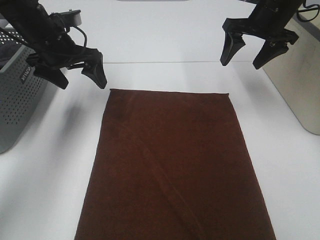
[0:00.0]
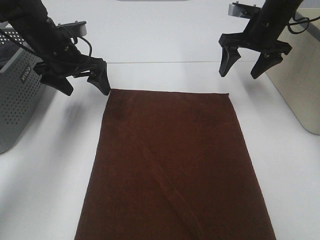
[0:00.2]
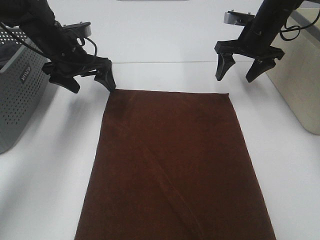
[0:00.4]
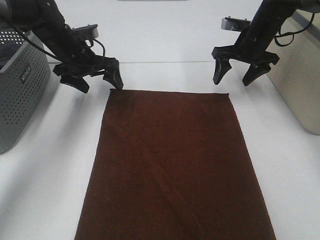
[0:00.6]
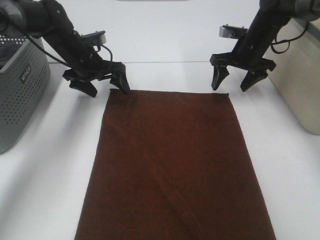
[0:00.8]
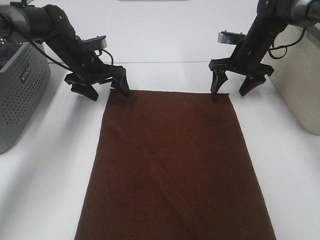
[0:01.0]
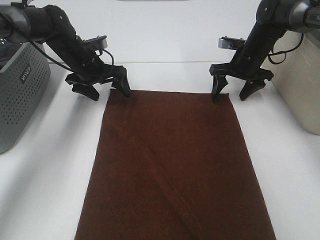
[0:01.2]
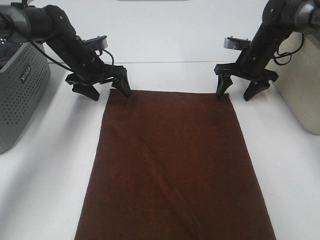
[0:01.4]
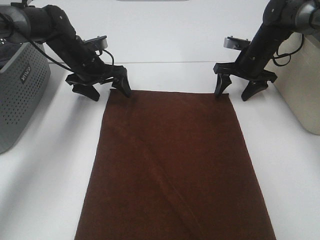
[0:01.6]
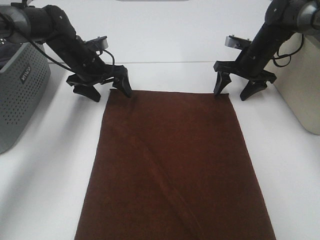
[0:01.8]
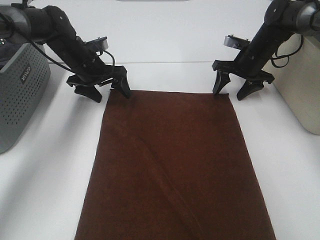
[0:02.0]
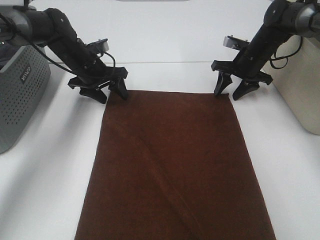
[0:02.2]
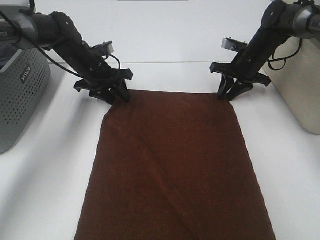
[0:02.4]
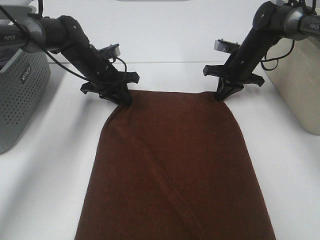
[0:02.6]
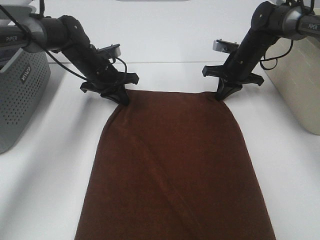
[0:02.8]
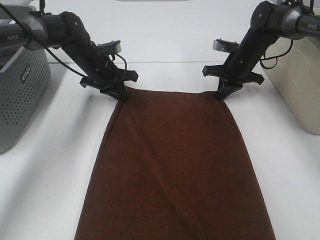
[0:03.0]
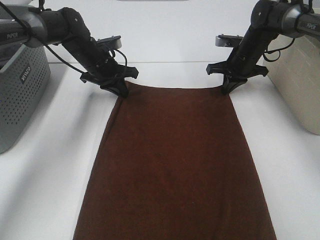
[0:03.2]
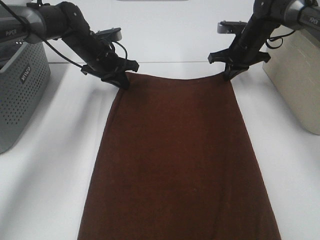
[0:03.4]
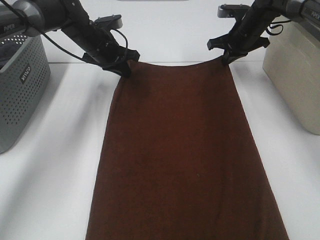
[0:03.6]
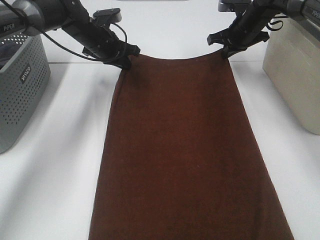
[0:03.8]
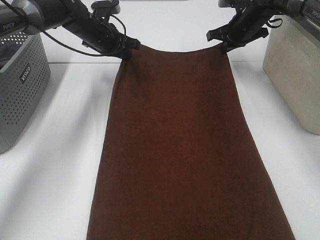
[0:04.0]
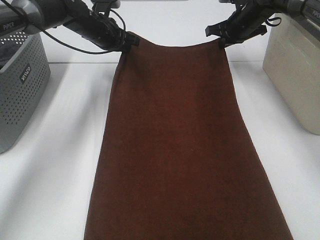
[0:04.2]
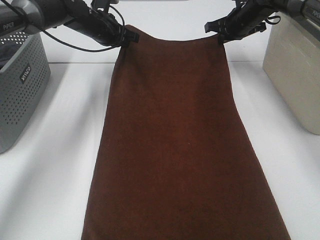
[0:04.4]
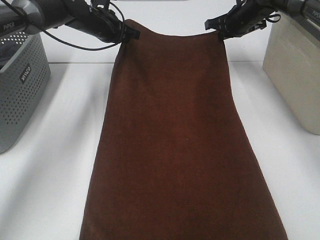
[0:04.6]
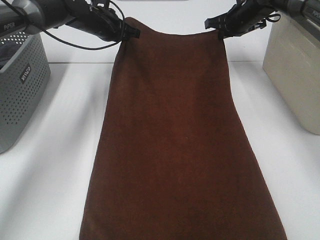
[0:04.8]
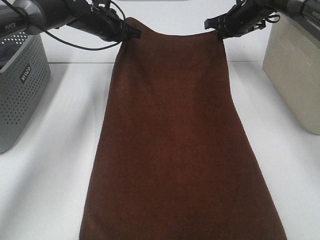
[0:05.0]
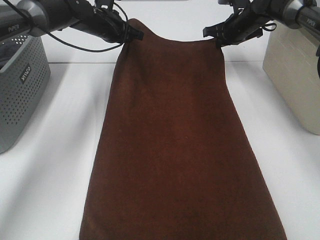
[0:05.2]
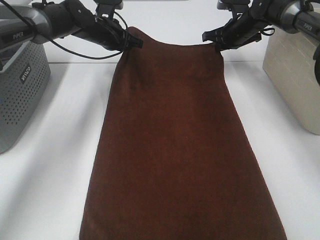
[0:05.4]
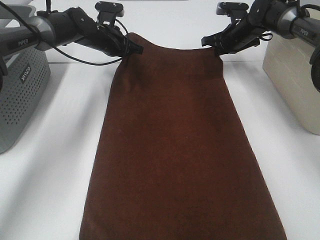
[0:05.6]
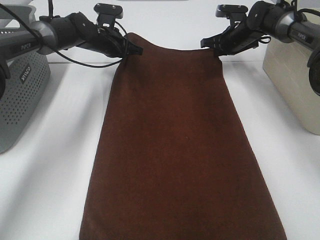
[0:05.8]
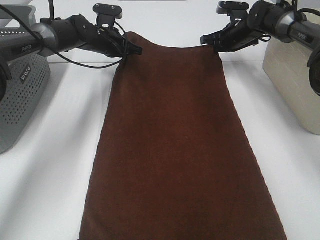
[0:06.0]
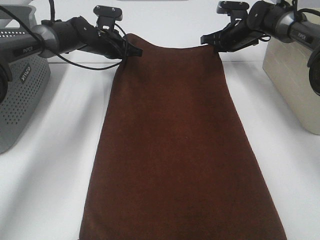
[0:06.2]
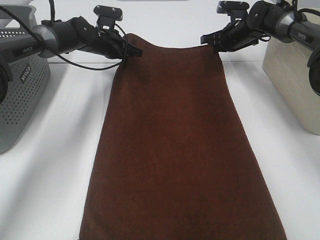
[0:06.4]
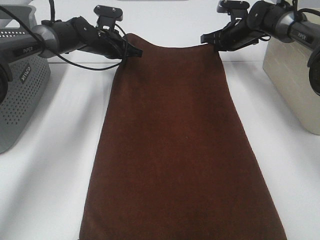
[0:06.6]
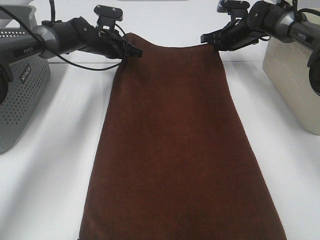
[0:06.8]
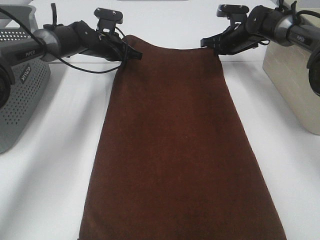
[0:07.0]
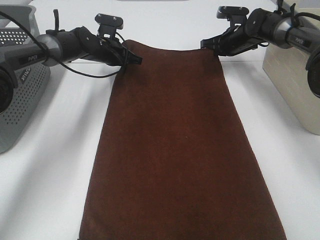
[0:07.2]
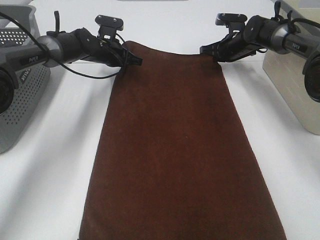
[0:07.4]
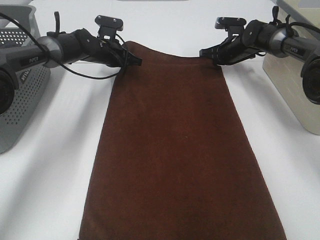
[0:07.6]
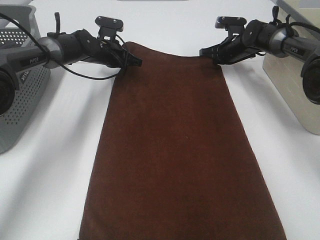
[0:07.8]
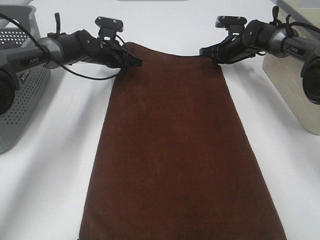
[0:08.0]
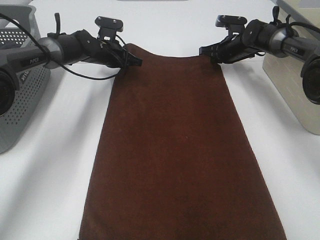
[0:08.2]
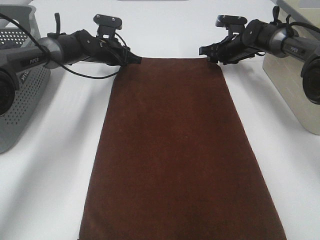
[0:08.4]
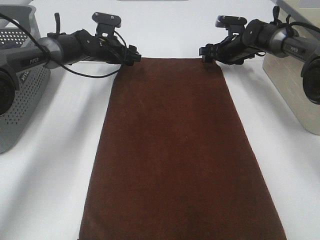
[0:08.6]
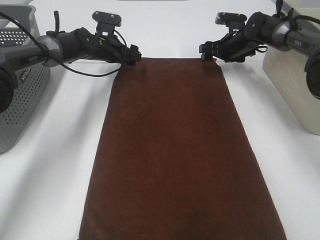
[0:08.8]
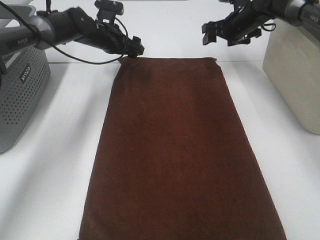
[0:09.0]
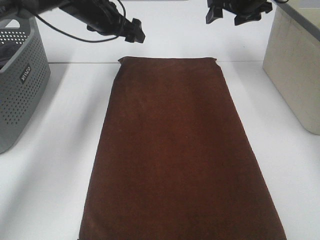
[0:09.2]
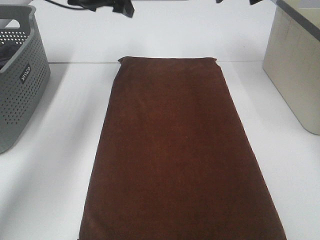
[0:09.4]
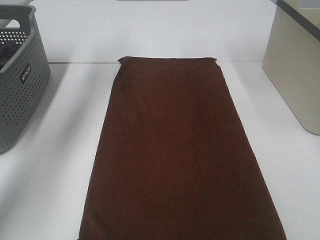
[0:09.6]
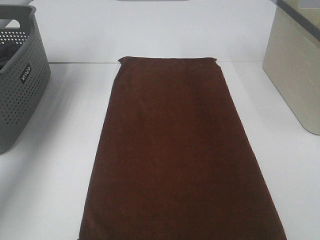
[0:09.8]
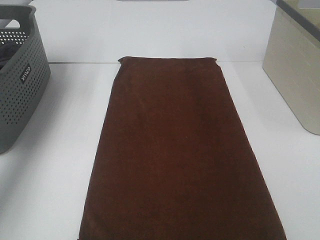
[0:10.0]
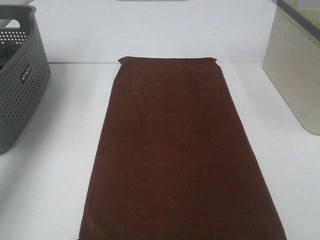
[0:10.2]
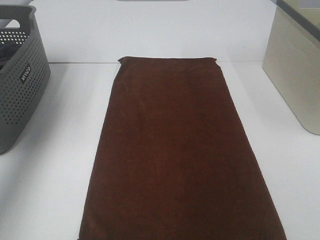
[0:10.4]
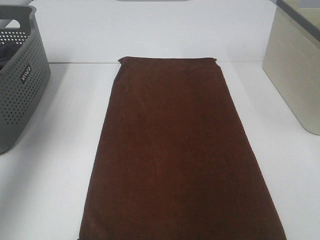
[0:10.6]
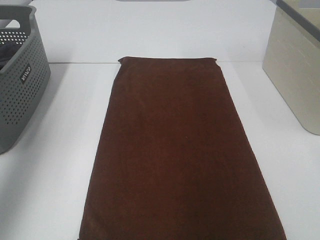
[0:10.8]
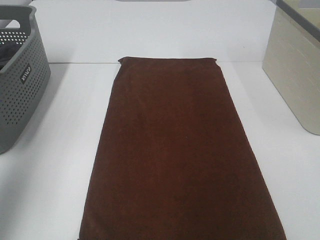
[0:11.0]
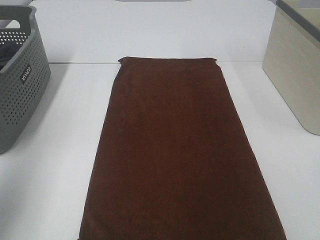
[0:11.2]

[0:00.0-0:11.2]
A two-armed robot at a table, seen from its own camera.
Task of the whole recording: Remove the towel and place it.
Step, 0:00.0 to 0:02.2: Left hand:adjust the brown towel.
Step, 0:00.0 to 0:02.2: Right hand:adjust the brown towel.
0:00.0 to 0:01.6: The grippers both shift downward and forward by about 10 cm.
0:01.6 to 0:03.2: The left gripper closes up. Meanwhile the right gripper closes its fingers.
0:03.2 to 0:04.8: Both grippers travel together upward and forward, some 10 cm.
0:04.8 to 0:06.4: The grippers both shift downward by some 5 cm.
0:06.4 to 0:08.0: The grippers make only small movements.
0:08.0 to 0:09.6: Both grippers move upward, roughly 25 cm. The right gripper opens its fingers. The left gripper opens its fingers.
0:09.6 to 0:11.2: The grippers both shift backward by some 40 cm.

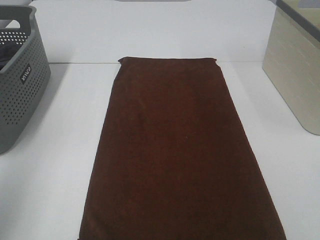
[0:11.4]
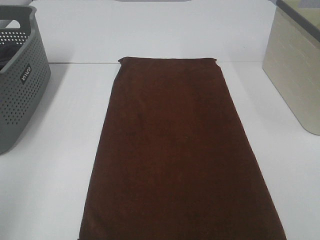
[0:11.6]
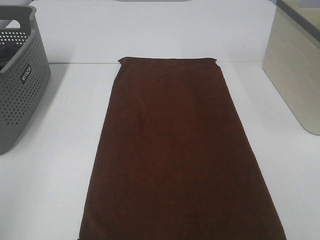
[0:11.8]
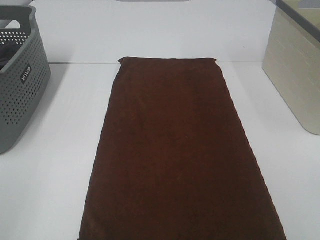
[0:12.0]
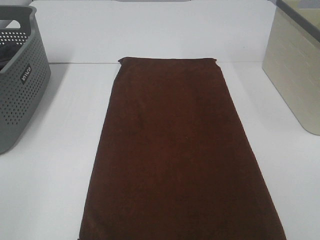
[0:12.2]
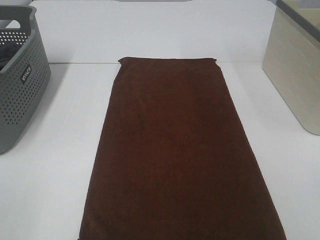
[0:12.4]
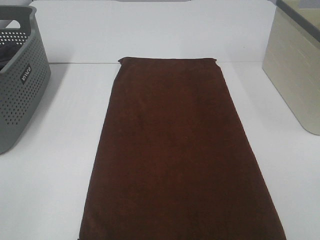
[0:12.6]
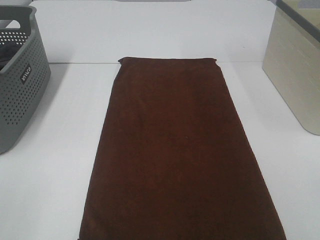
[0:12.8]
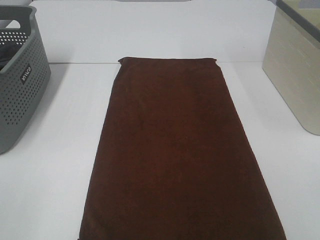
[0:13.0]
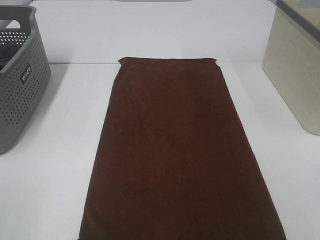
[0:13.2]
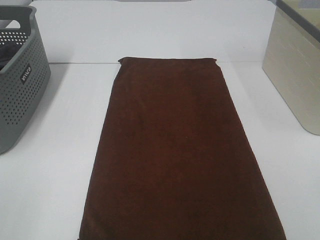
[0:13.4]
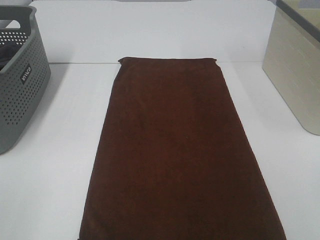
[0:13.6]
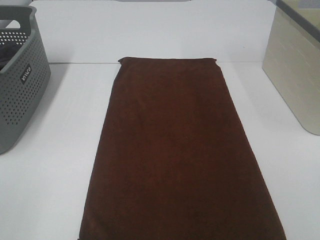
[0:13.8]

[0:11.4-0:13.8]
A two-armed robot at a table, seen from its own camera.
Task of the whole recording: Remove the towel and place it.
0:11.4 to 0:12.6: The left gripper goes about 15 cm backward and downward.
0:12.6 to 0:13.8: Neither gripper changes place.

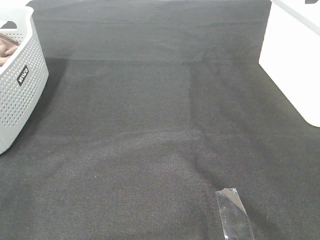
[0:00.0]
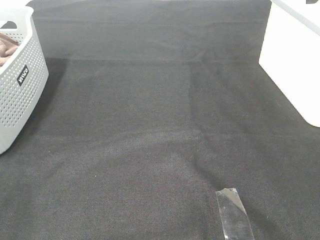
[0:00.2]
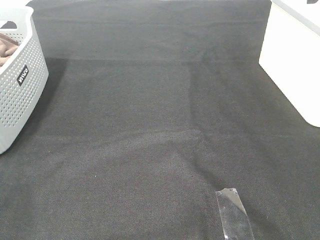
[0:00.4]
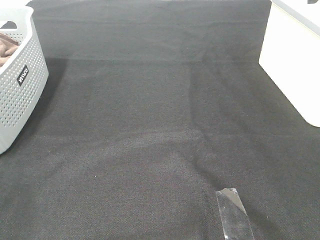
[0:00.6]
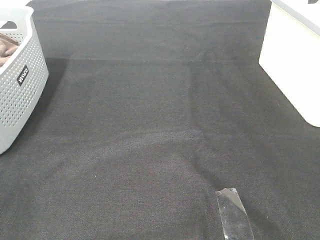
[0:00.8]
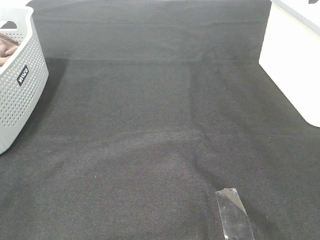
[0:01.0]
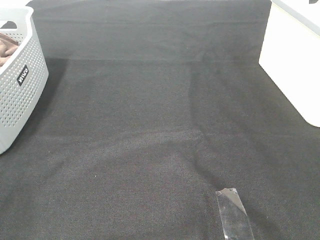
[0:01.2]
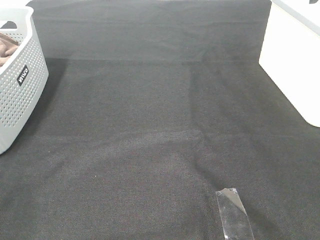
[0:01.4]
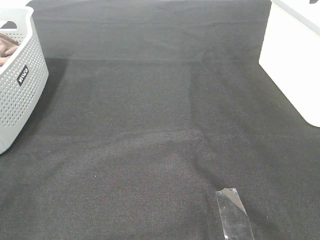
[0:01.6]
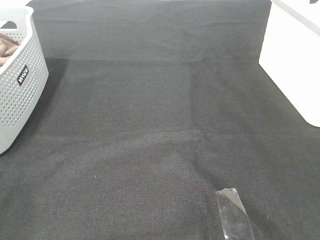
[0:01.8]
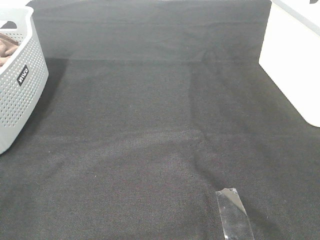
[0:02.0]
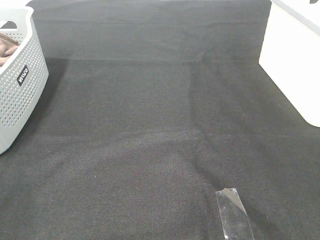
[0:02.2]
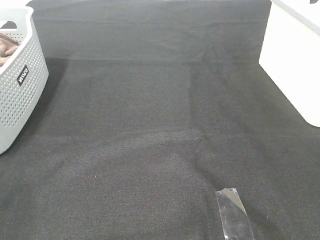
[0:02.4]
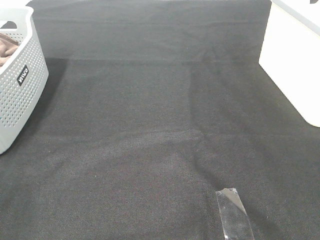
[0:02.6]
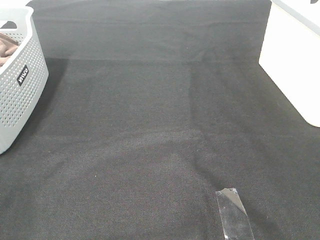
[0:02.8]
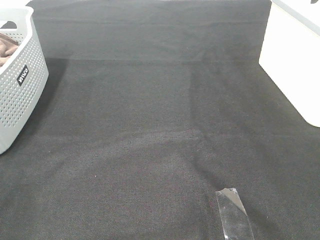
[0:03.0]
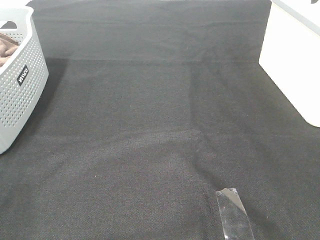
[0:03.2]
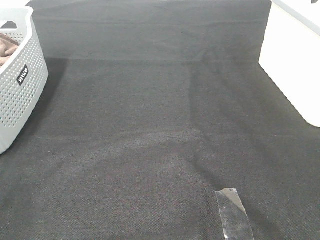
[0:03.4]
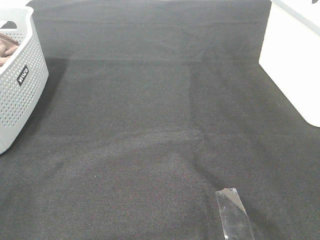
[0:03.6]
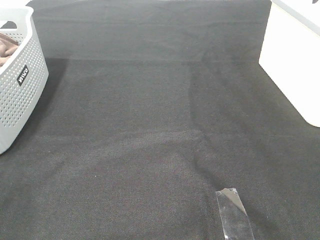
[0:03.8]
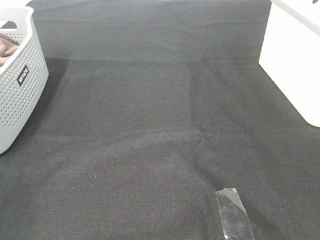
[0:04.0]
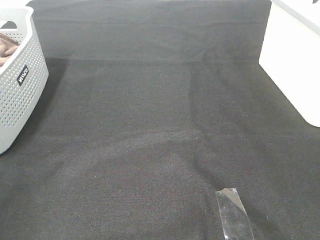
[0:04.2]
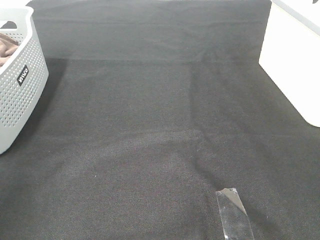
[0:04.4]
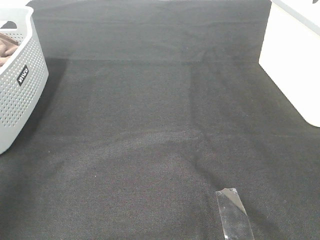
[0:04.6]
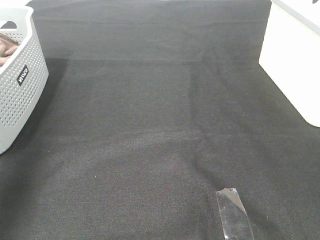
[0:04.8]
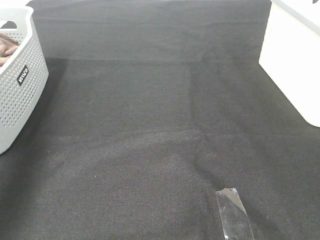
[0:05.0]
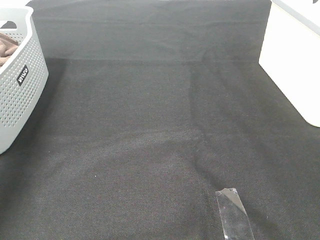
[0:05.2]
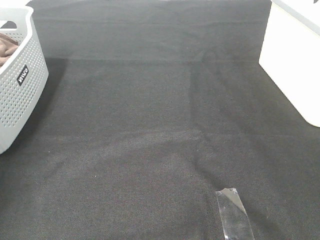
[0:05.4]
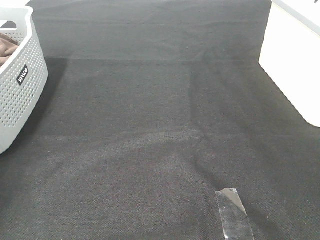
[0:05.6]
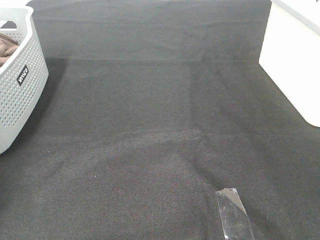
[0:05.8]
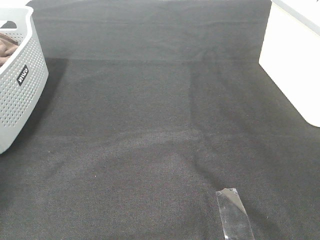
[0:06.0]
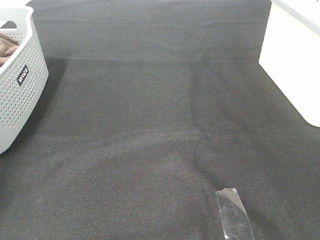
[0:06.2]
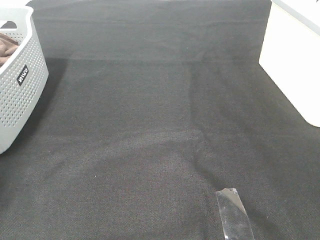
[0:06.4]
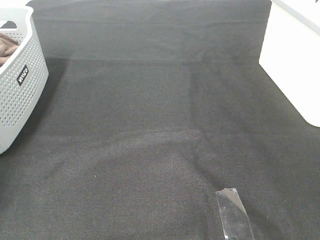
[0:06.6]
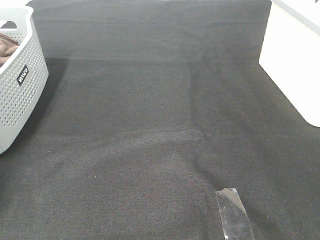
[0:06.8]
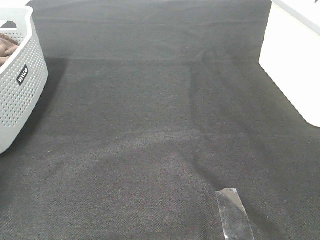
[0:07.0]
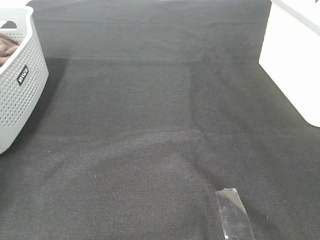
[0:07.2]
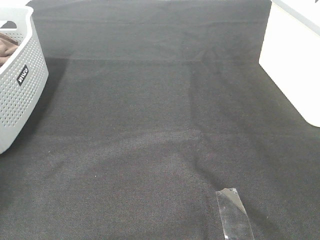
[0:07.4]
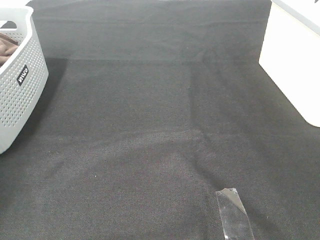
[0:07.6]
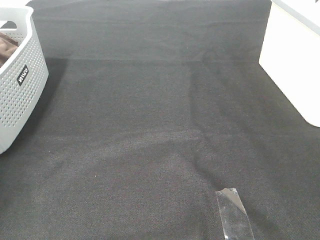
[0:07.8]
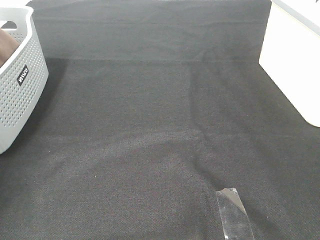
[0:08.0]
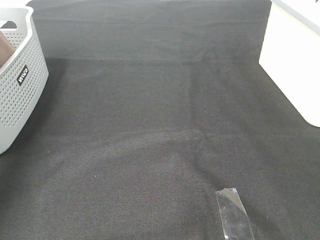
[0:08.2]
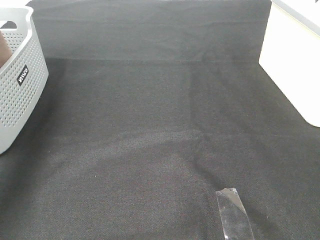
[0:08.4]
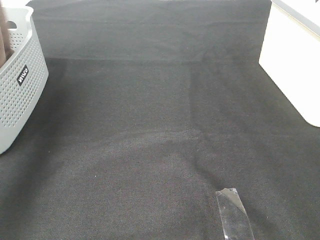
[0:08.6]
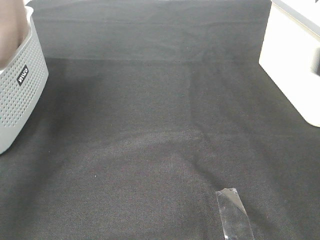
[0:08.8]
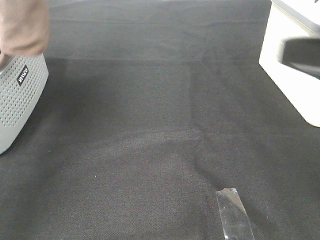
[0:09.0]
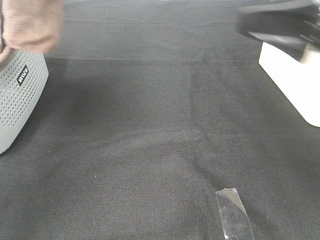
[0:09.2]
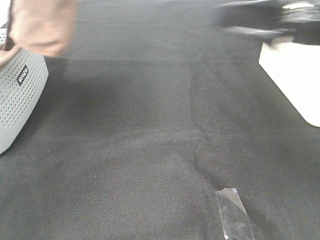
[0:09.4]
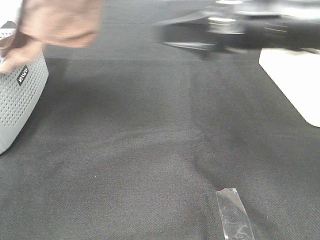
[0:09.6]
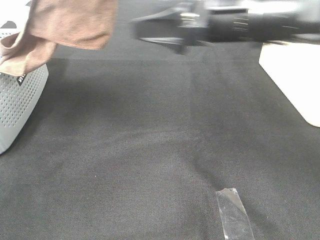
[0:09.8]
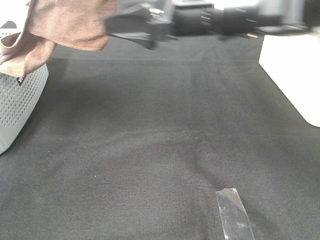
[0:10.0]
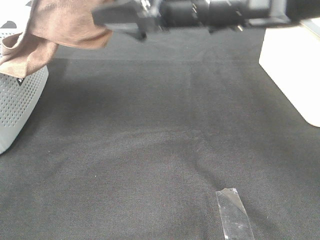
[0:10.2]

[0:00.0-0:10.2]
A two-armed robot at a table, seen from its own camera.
Task of the whole recording: Remove the towel and place it.
0:00.0 to 0:03.0: The two grippers keep their place.
0:07.2 to 0:08.8: The left gripper travels upward, to the right and backward by approximately 35 cm.
0:08.8 to 0:10.2: The left gripper travels to the right by some 10 cm, while the right gripper shifts about 30 cm forward and to the left.
